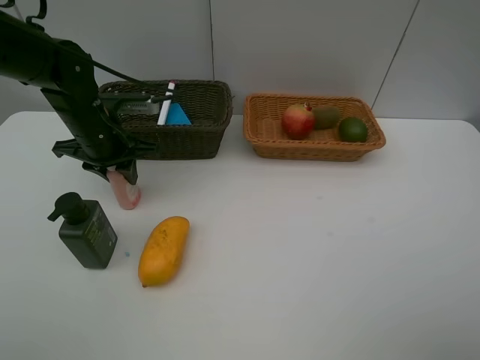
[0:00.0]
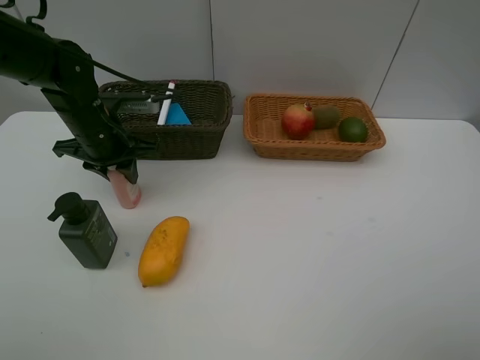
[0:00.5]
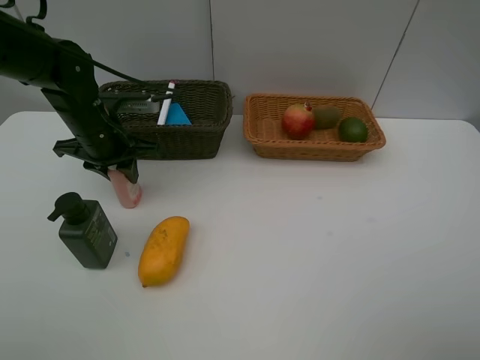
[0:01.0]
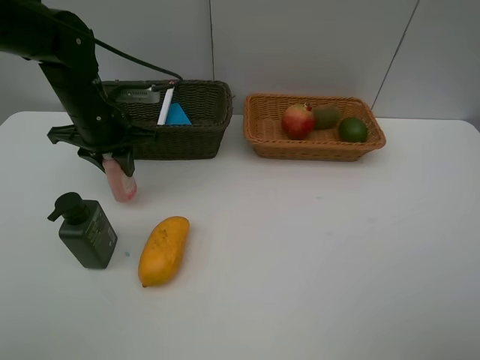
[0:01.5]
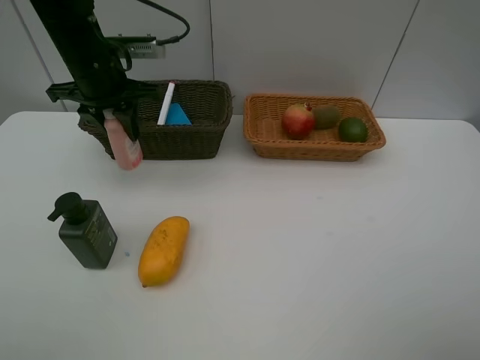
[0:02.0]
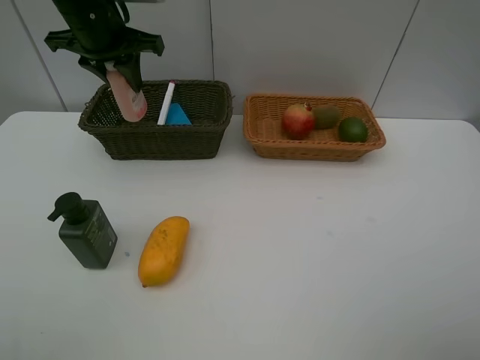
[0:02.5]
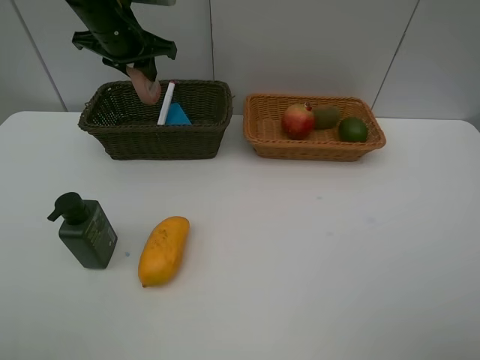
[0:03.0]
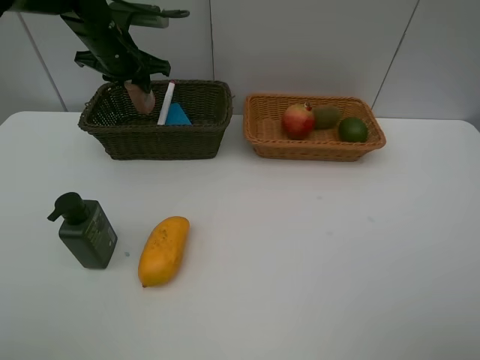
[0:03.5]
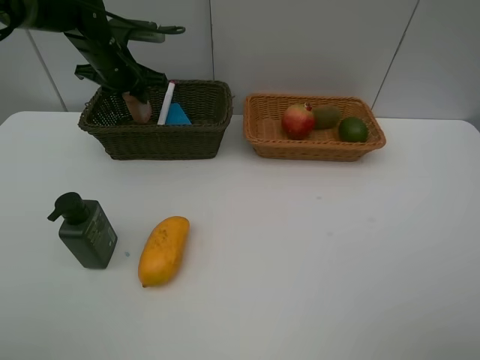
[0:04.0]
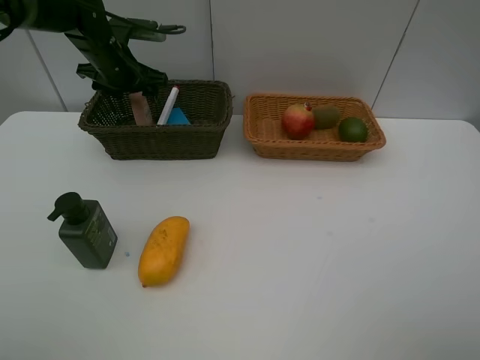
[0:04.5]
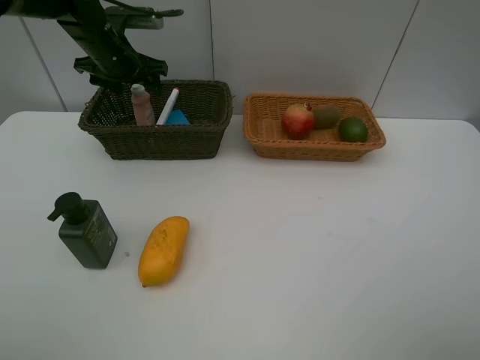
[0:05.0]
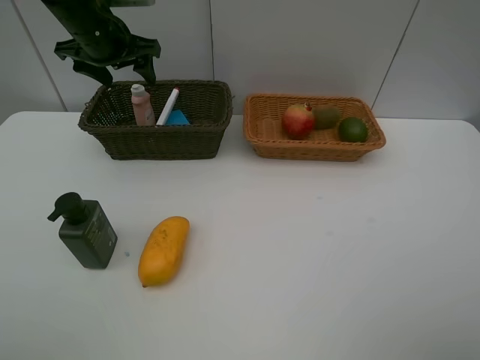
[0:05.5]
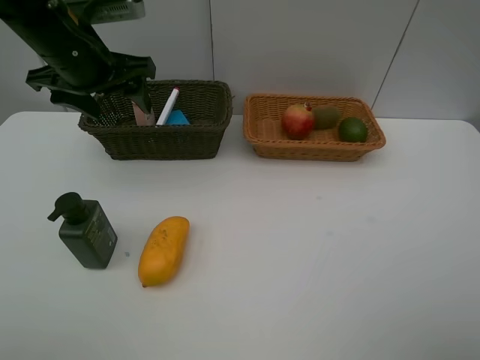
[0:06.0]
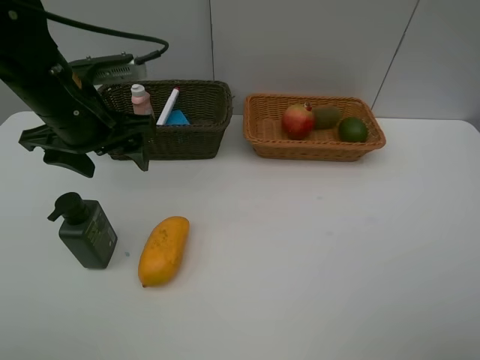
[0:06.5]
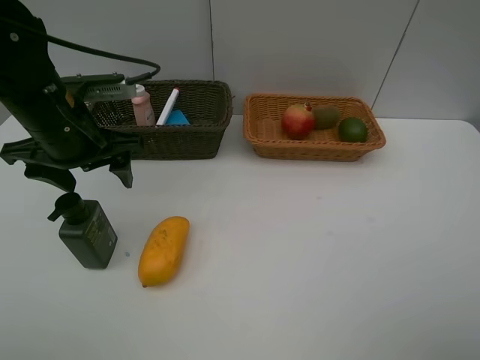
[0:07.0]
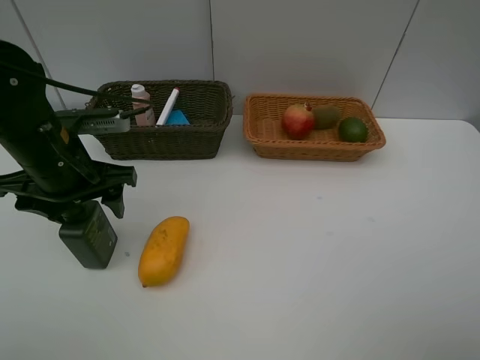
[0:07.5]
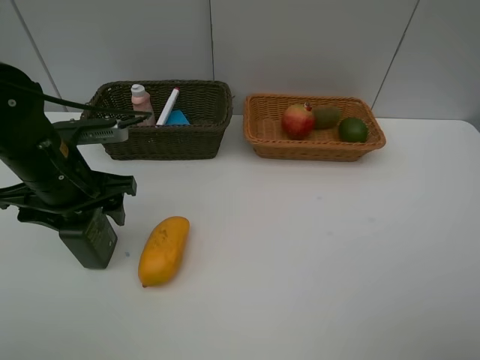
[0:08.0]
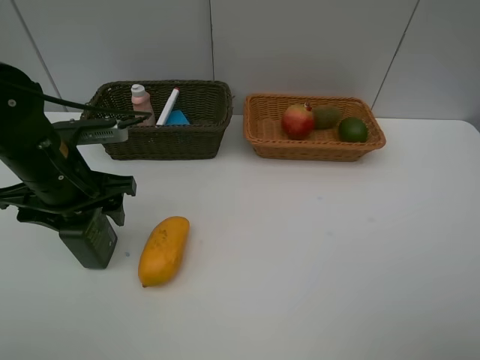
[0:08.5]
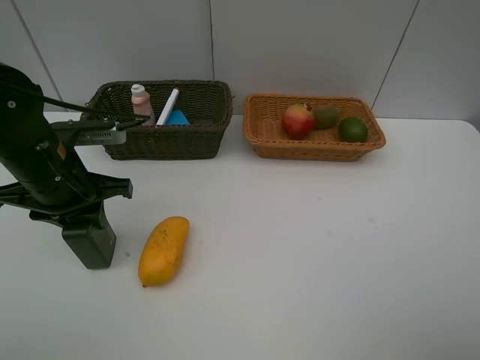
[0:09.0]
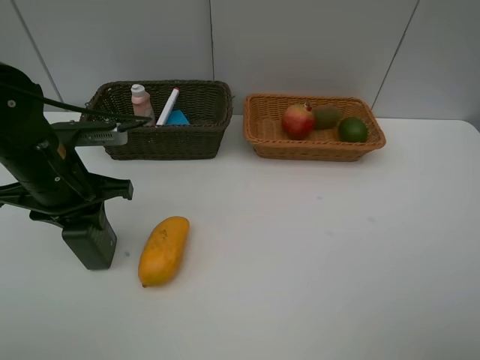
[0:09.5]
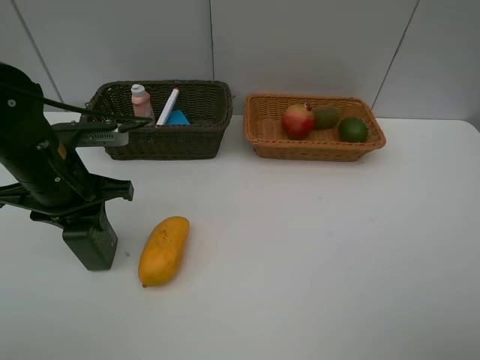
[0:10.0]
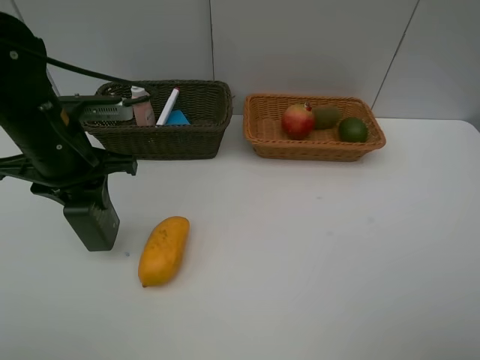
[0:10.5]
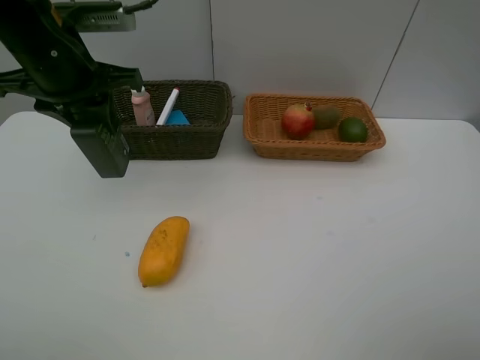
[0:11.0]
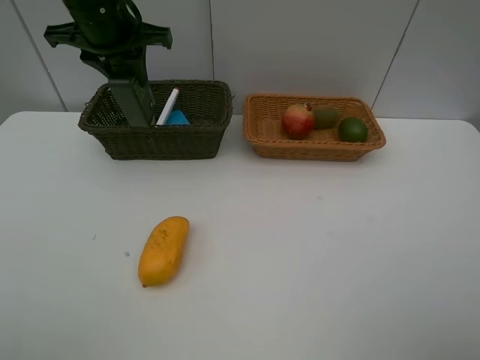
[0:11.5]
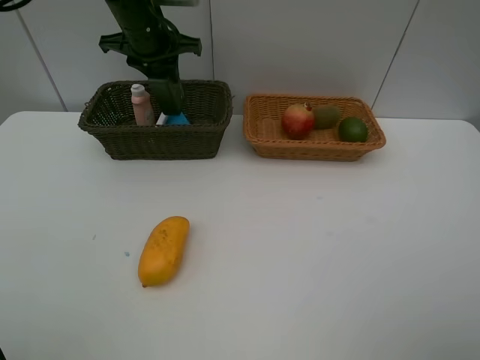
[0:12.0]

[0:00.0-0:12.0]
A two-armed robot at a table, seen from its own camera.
Task of the whole recording: Place multiple objects separately in different baskets.
Step, 0:02.0 to 0:05.0: Place the laundry detergent in the dark basket with left gripper.
Step, 0:05.5 to 0:10.5: Pick up the hard facial cleanser with left gripper.
0:00.0 to 0:02.0: The left gripper moves upward, roughly 10 cm.
0:02.0 to 0:04.0: The left gripper moves forward, roughly 10 cm.
0:04.0 to 0:06.0: The left gripper heads backward and upward, covering some 15 cm, and opens its fingers.
0:06.0 to 0:08.0: The left gripper goes about 15 cm downward and backward.
0:08.0 to 0:10.0: The left gripper closes.
0:10.0 to 0:12.0: The left gripper is displaced forward by roughly 20 cm.

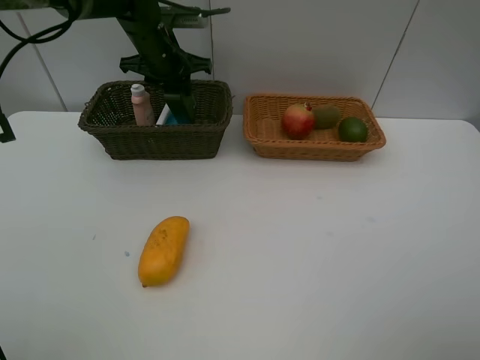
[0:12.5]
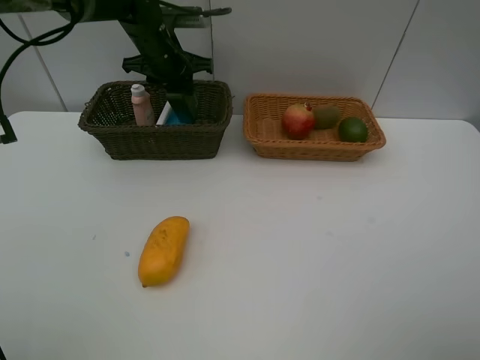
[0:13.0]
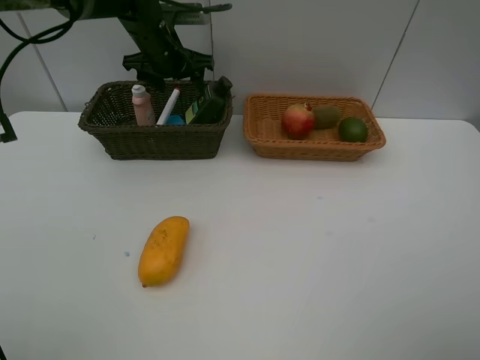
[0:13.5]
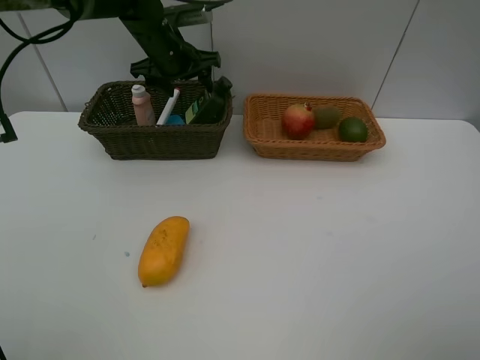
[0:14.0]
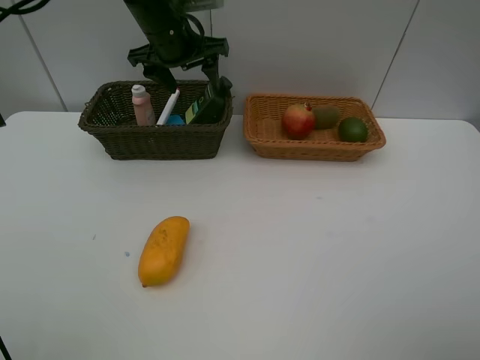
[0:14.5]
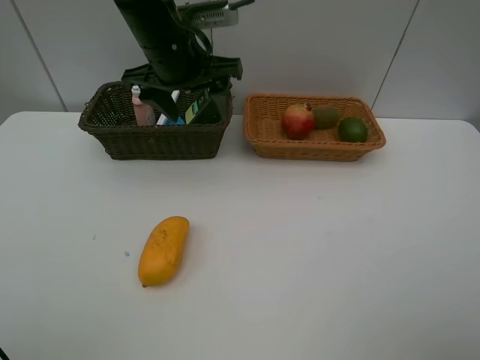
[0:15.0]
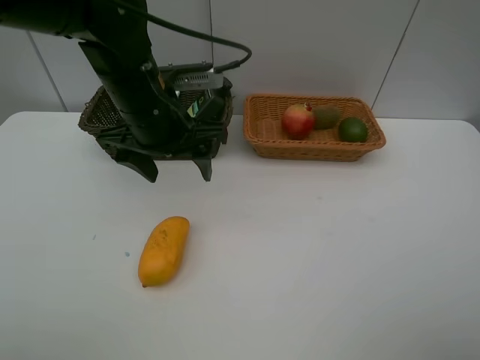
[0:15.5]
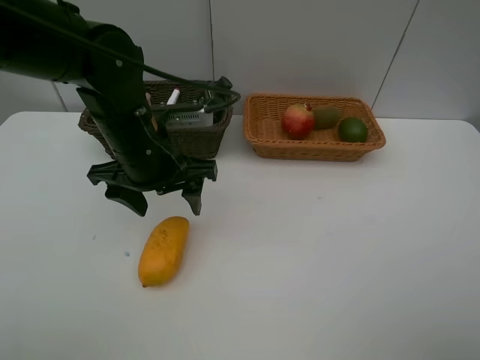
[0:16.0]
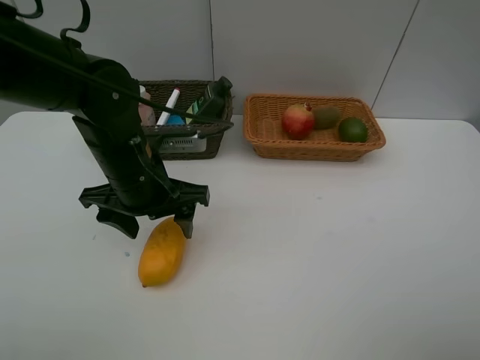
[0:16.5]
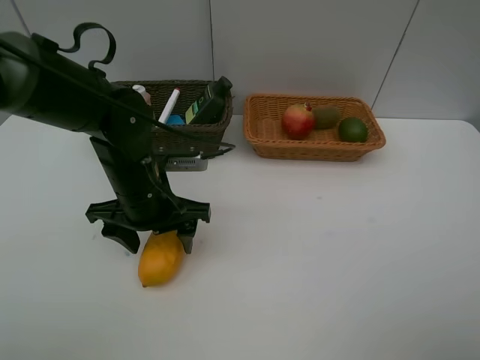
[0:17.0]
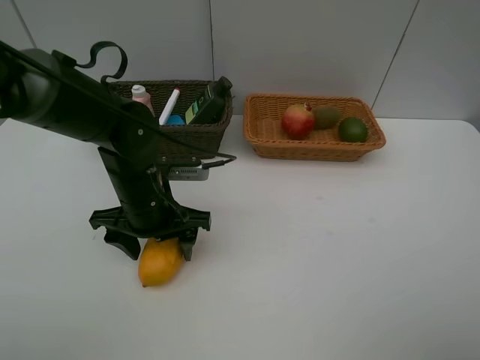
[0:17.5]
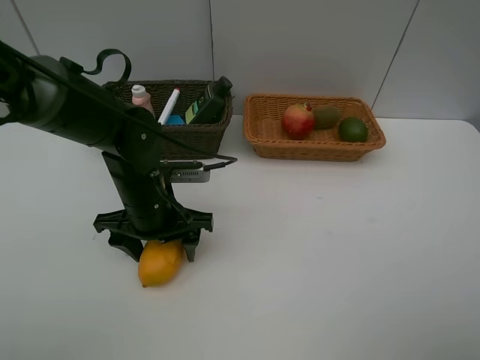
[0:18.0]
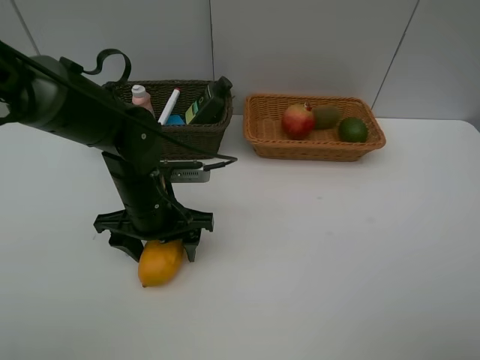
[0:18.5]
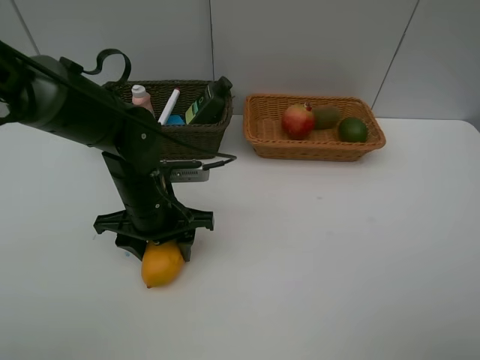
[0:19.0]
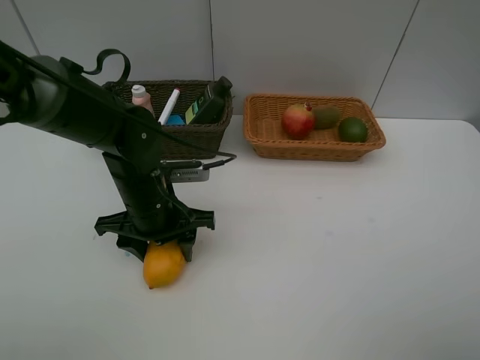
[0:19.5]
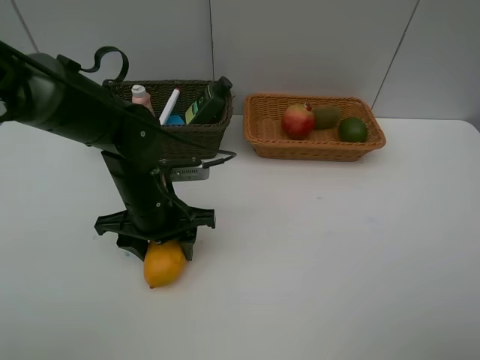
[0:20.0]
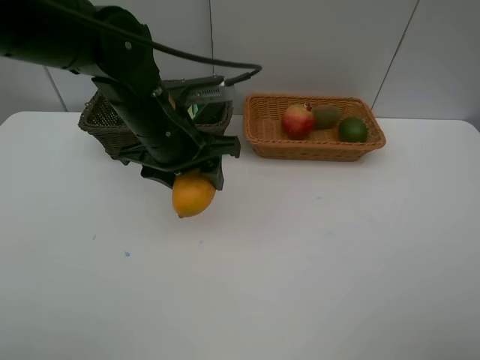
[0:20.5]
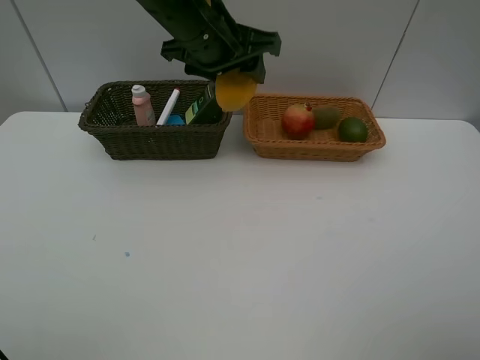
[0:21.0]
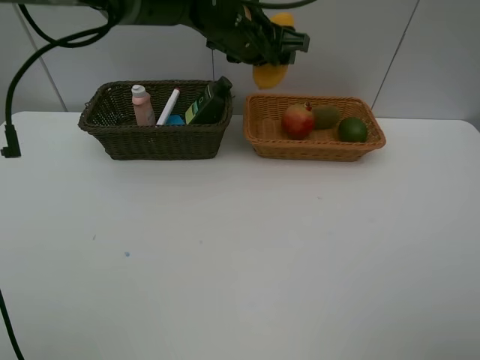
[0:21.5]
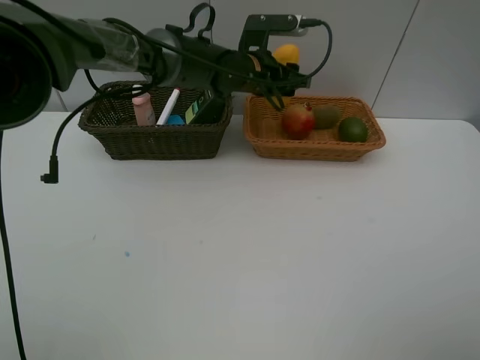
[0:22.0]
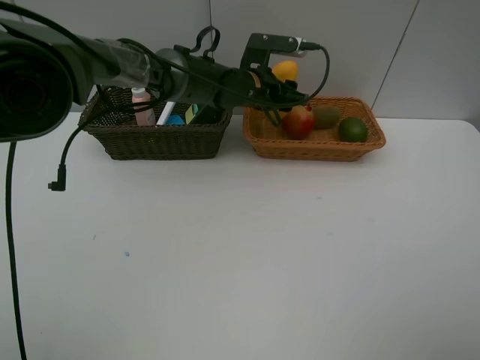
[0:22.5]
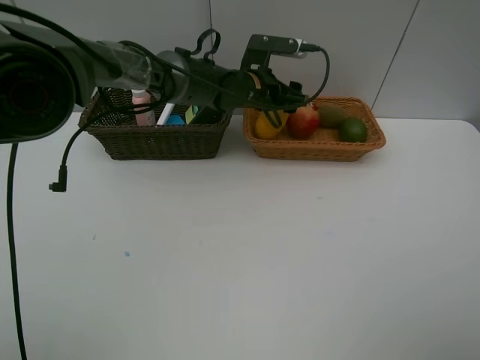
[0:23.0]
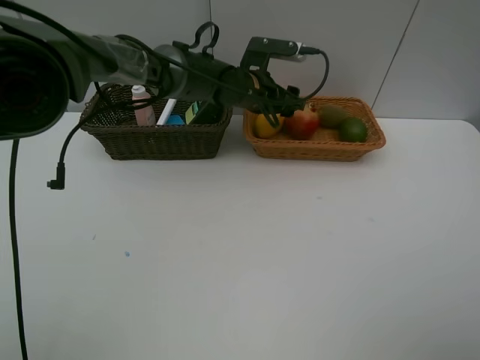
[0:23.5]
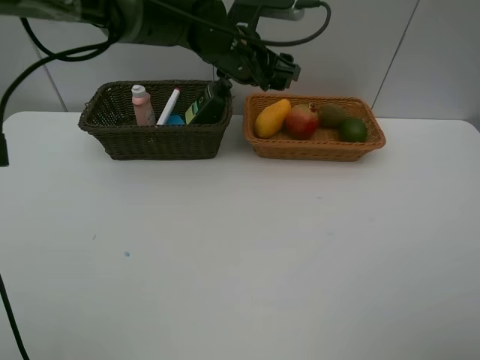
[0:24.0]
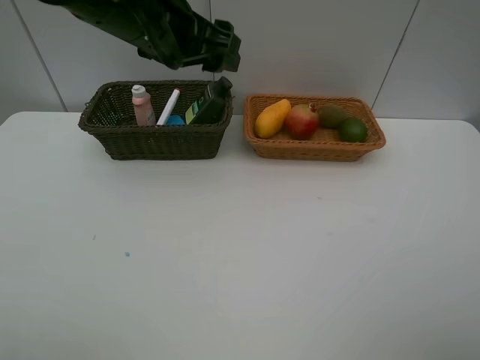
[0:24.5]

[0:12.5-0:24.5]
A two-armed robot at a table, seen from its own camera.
Task of the whole recording: Place multiple objects separately in different baskets.
Step, 0:14.0 to 0:20.0: Pick up mango with left gripper.
Step, 0:20.5 to 0:23.5: Place the mango in the light basket with left gripper.
0:12.5 to 0:14.5: The left gripper moves roughly 5 cm, and opens its fingers.
0:14.5 to 0:16.5: The left gripper shifts about 20 cm backward and downward.
0:16.5 to 0:18.5: The left gripper moves downward, roughly 5 cm.
0:18.5 to 0:20.5: The left gripper heads upward, covering some 10 cm.
0:20.5 to 0:22.5: The left gripper goes some 20 cm forward and to the right.
0:22.5 to 0:24.5: The left gripper goes some 25 cm upward, backward and to the left.

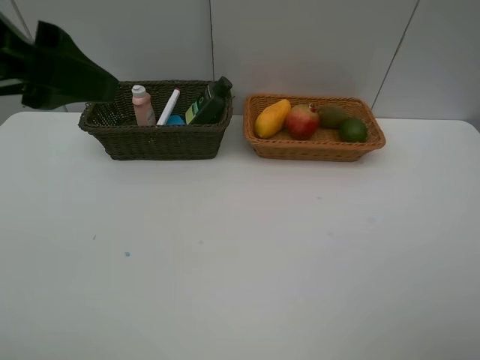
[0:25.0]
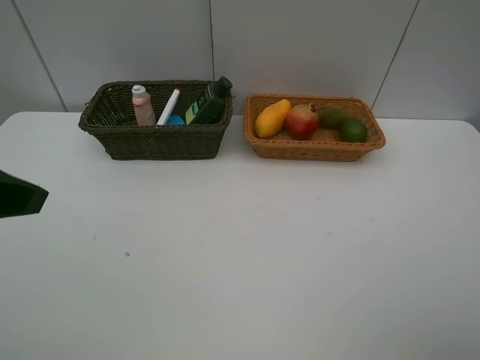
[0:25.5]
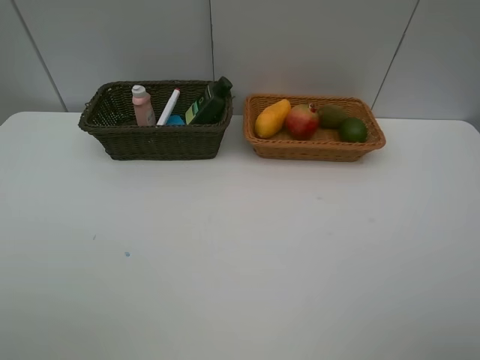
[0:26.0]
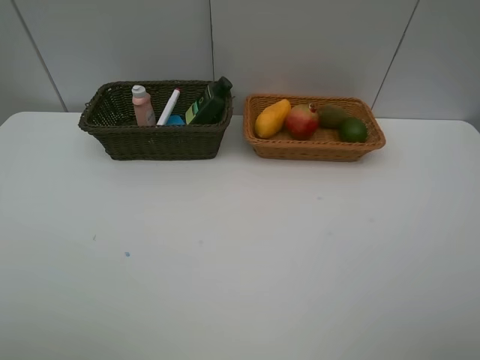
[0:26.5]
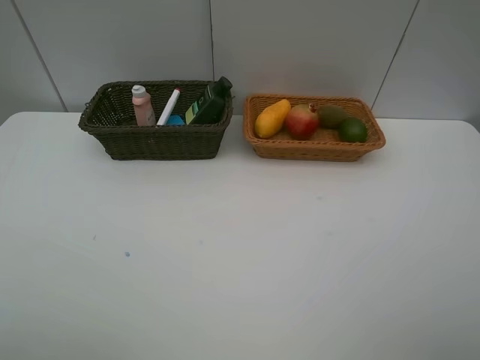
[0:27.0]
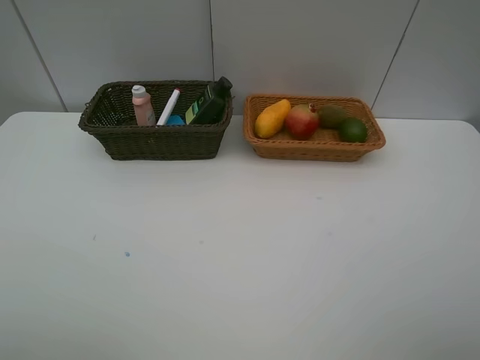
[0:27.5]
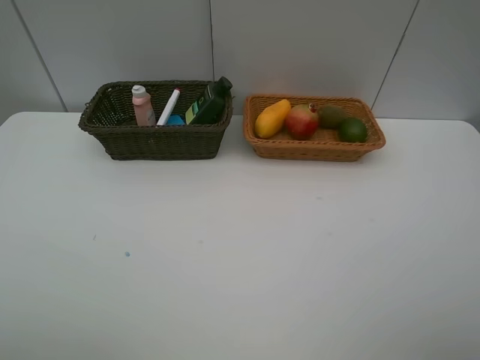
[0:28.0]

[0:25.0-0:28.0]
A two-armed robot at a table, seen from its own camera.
Task of the whole recording: Place multiple objects separately in different baskets.
0:25.0 to 0:26.5: The left gripper goes roughly 20 cm backward, to the left and downward.
